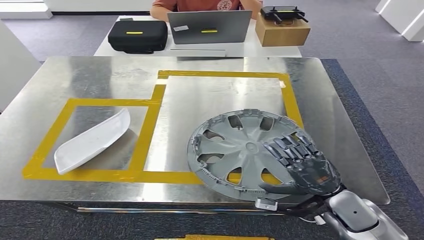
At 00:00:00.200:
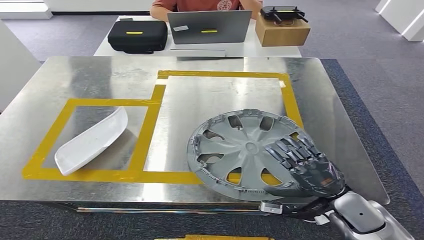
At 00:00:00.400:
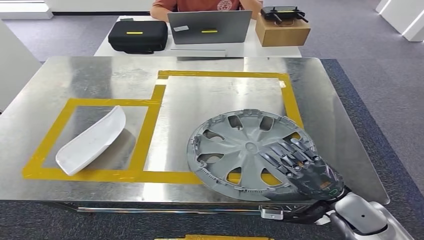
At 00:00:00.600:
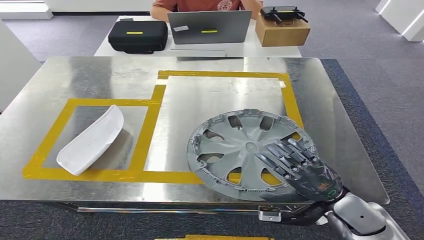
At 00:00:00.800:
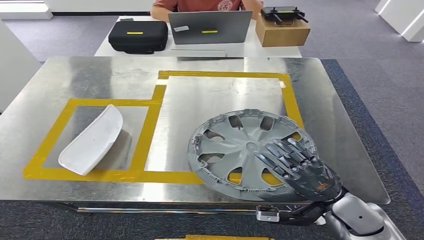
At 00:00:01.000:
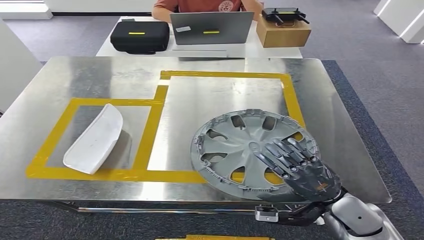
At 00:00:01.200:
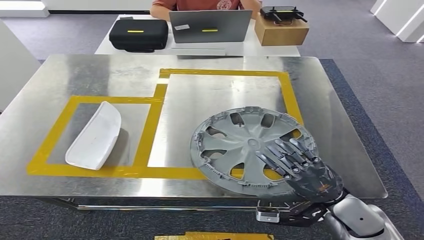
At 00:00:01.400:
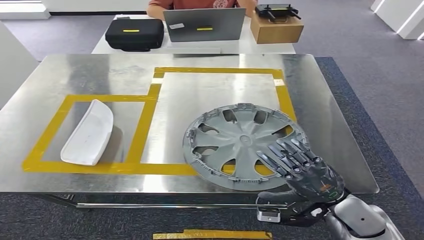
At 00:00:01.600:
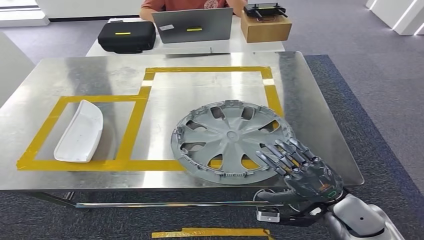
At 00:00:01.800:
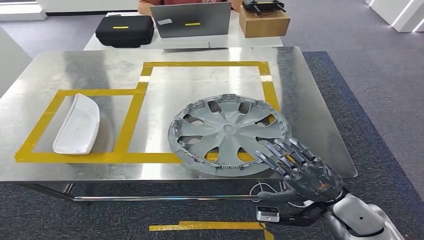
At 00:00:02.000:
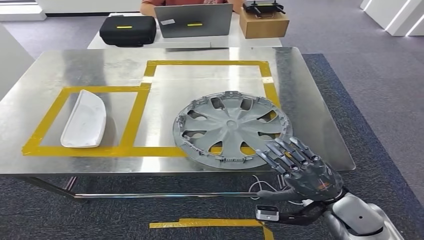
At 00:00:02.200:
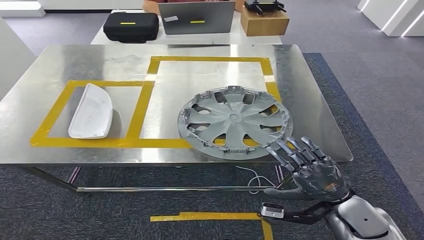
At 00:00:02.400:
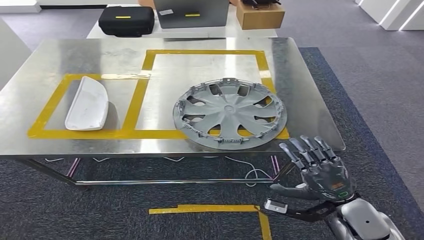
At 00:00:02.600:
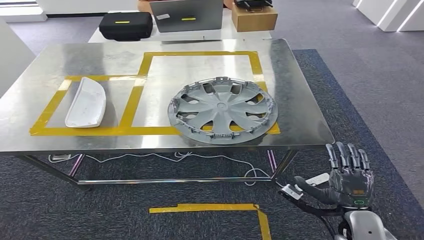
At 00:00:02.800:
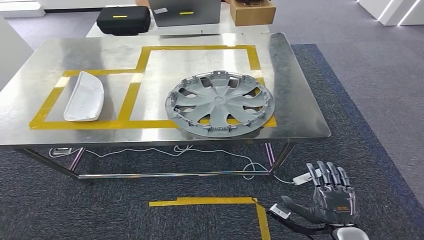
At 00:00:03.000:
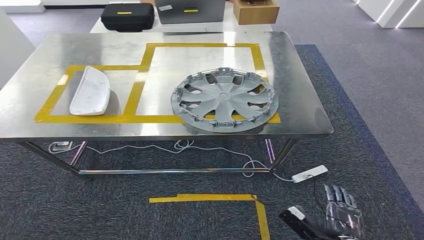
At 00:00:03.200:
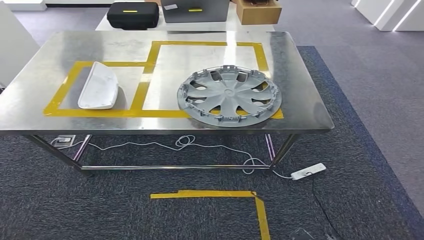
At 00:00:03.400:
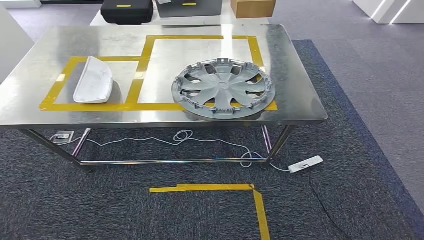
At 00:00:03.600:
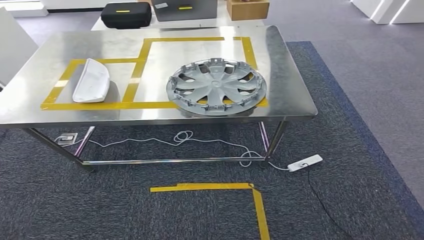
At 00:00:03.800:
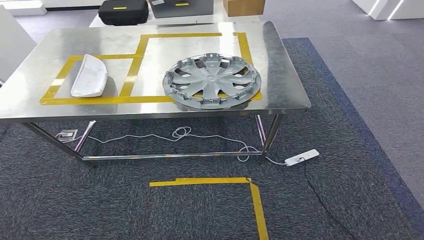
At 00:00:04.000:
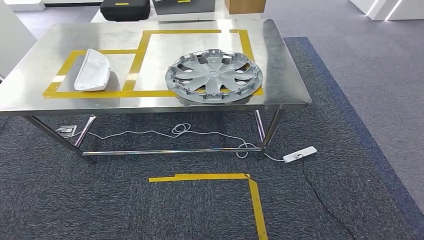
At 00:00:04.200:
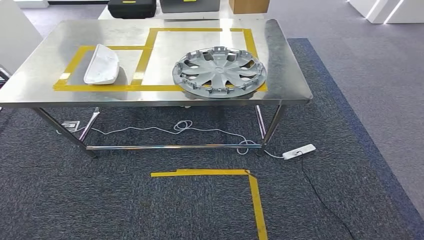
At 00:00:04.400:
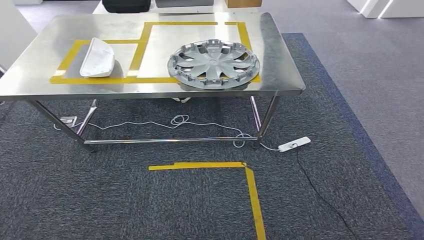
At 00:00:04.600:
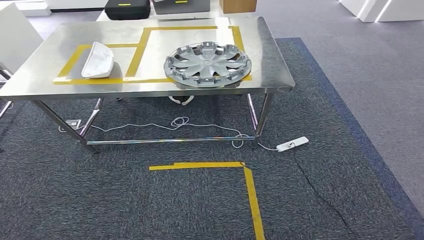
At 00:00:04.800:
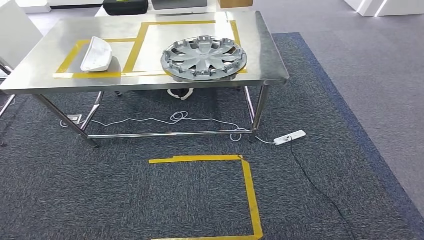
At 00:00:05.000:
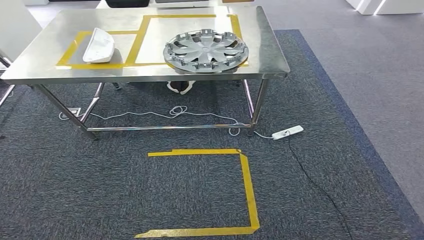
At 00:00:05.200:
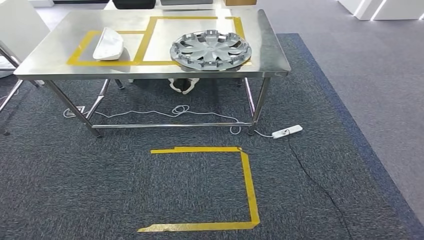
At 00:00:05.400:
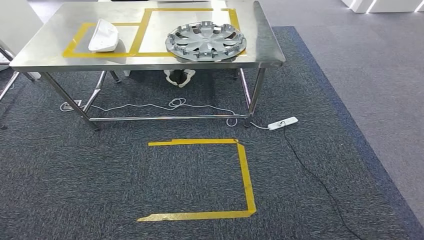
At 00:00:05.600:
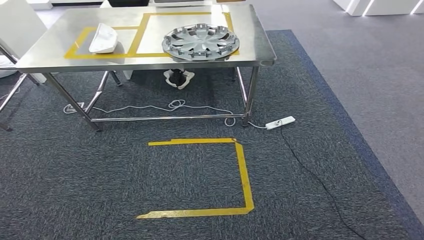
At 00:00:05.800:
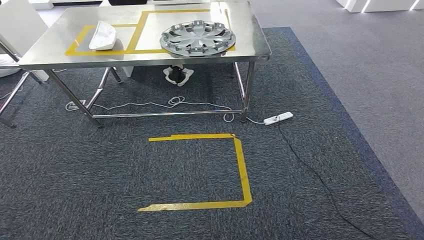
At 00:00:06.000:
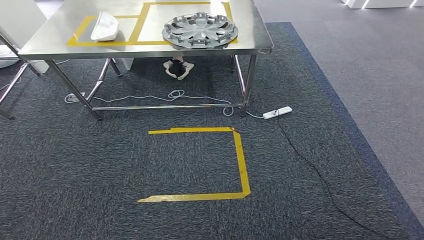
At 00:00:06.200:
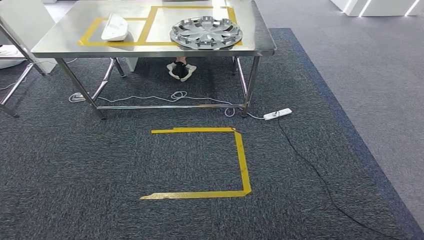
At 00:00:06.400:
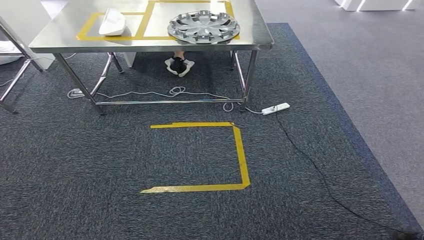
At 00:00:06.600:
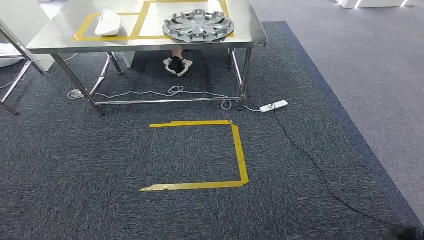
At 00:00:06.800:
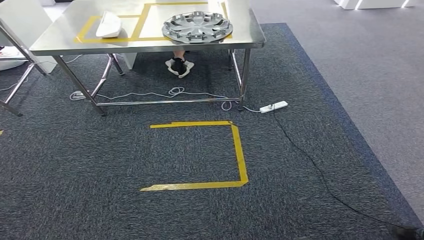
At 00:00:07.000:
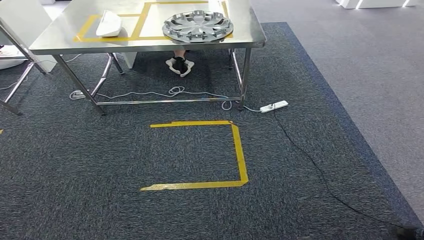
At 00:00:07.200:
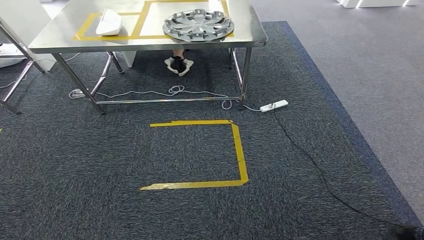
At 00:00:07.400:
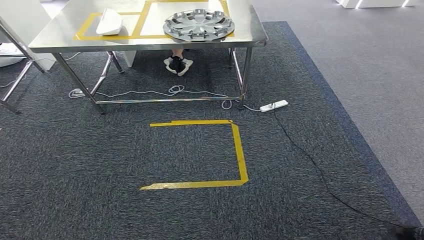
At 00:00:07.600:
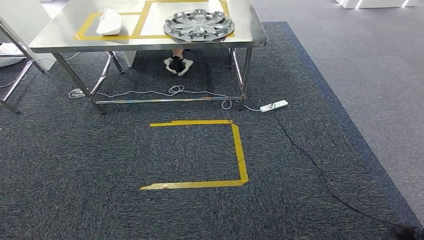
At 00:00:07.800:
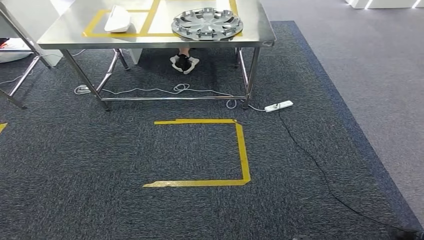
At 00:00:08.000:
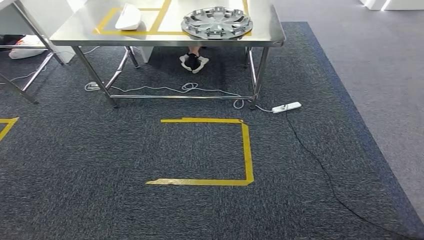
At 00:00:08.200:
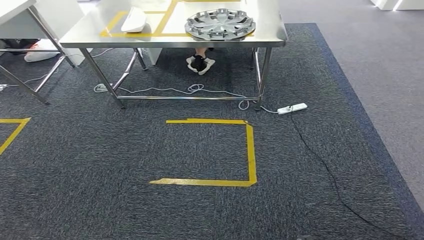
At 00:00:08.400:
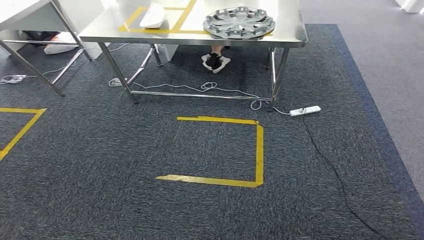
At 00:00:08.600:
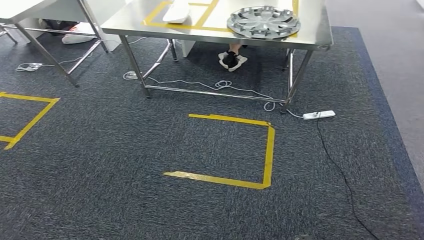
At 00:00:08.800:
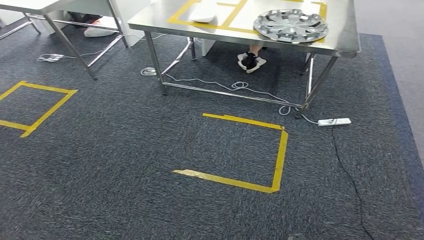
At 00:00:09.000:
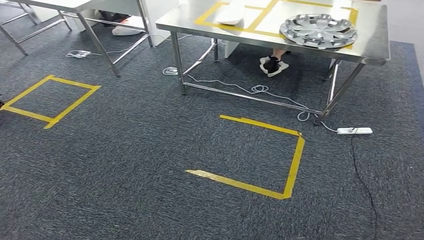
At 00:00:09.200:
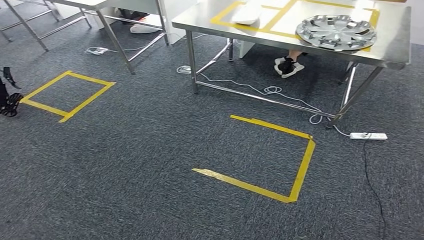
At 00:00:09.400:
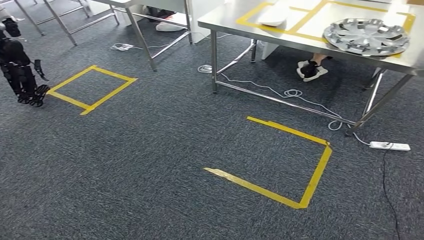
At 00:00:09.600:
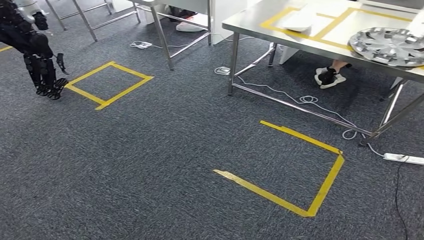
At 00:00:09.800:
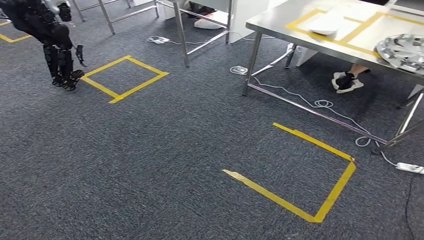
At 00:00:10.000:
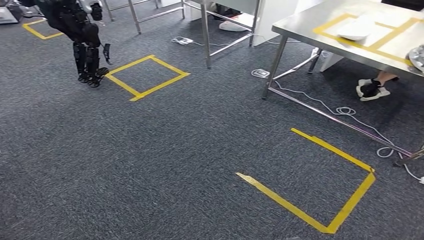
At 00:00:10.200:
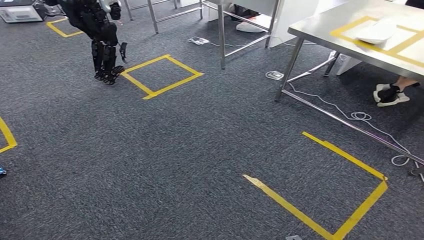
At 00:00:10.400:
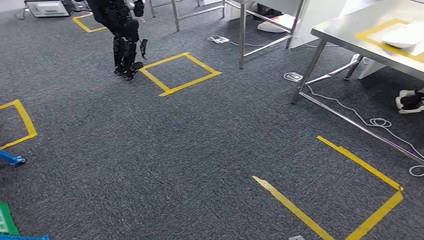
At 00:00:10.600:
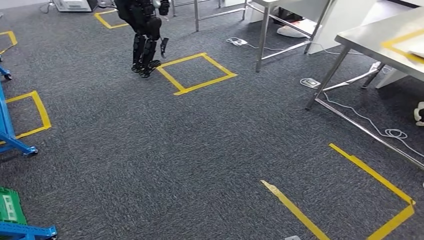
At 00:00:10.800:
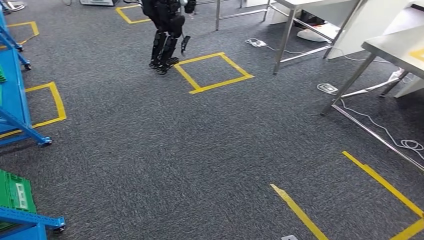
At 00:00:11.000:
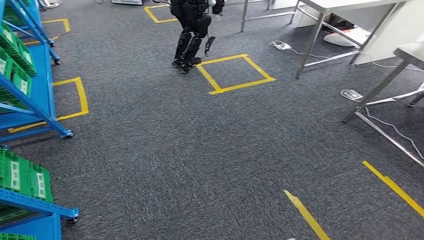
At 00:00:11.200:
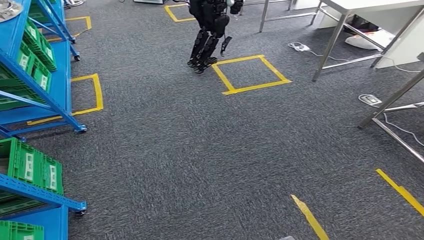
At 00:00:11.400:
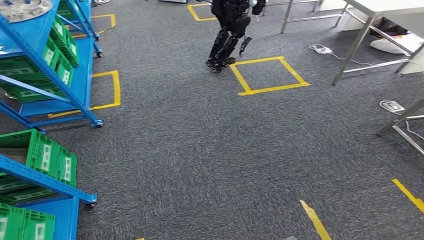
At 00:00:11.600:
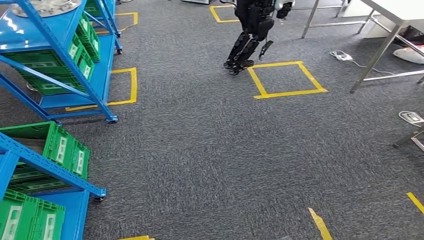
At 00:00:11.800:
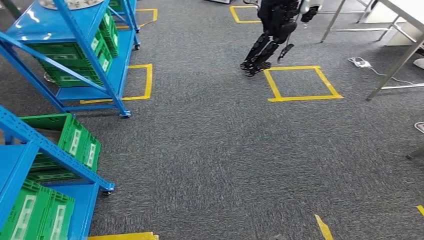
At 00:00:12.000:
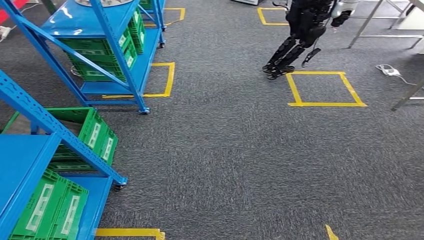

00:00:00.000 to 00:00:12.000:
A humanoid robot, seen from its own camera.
Step, 00:00:00.000 to 00:00:04.200: Insert the small component into the corresponding slot on the workbench.
00:00:06.000 to 00:00:07.600: The hands stay close to where they were, moving slightly.

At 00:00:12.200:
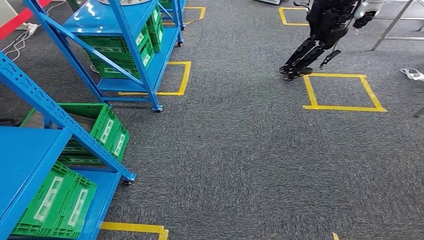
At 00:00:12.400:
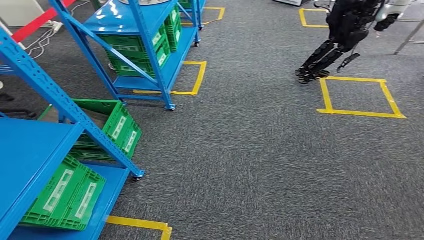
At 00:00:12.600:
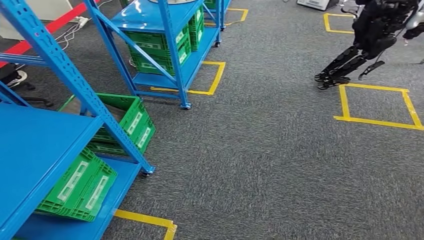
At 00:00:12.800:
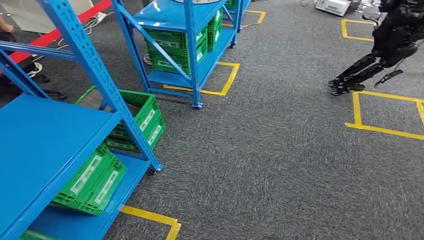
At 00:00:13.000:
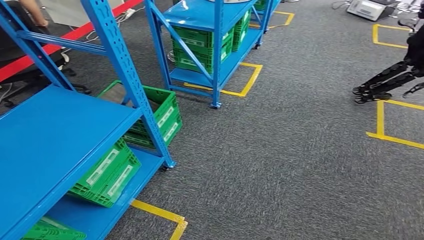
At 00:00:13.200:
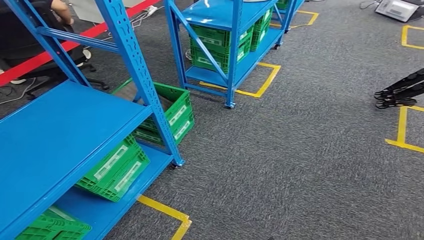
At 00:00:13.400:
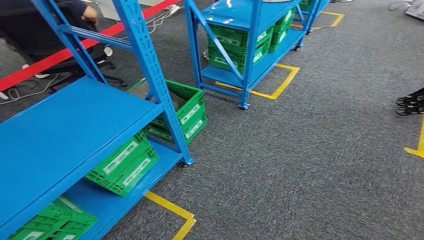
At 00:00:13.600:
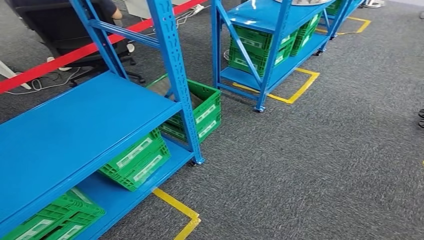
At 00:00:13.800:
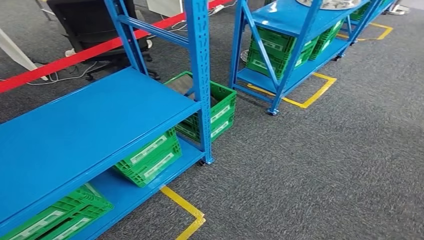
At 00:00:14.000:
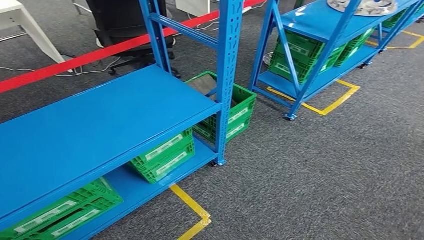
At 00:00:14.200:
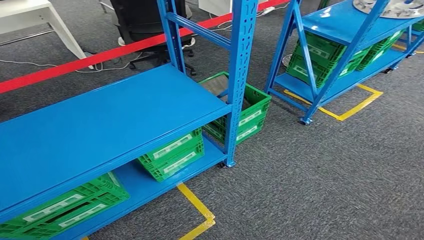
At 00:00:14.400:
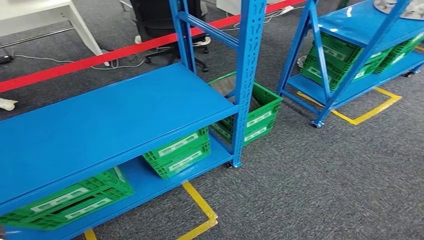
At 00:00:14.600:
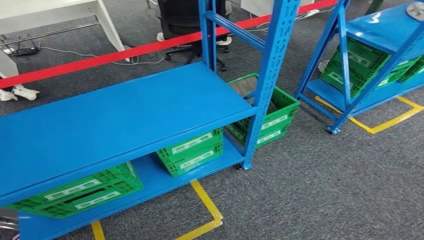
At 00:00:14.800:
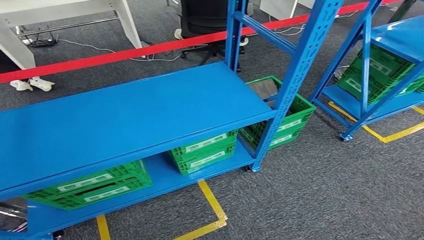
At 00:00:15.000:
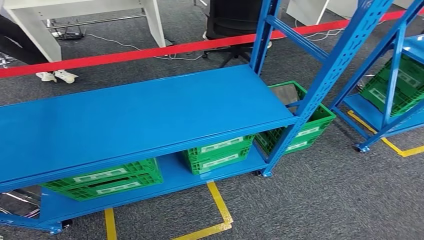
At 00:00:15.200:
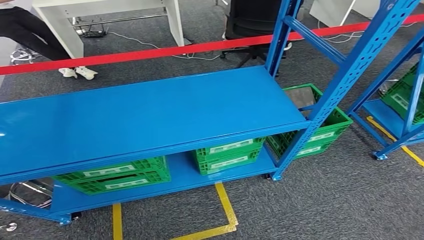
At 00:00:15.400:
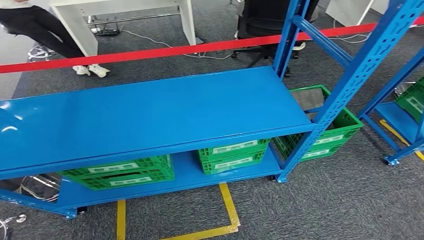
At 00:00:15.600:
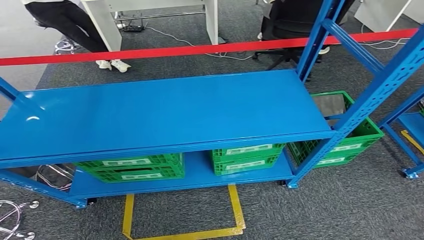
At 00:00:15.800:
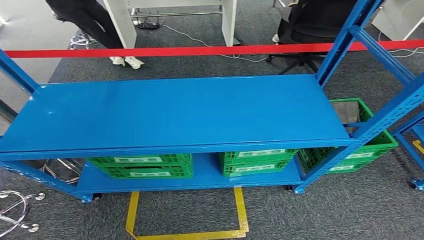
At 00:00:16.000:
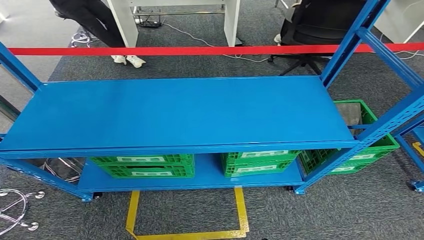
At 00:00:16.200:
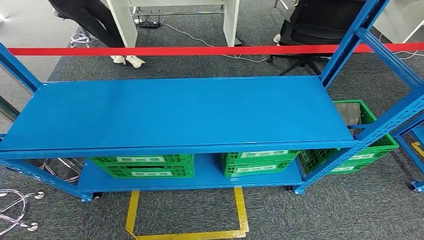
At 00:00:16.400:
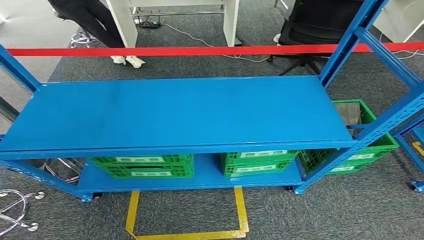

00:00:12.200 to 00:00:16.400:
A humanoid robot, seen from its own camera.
Step, 00:00:12.200 to 00:00:16.200: Move to the initial position at the workbench.
